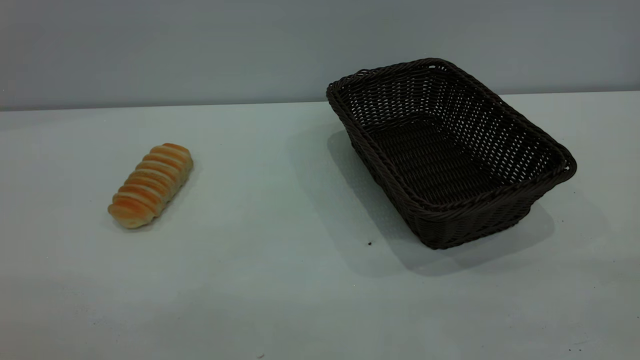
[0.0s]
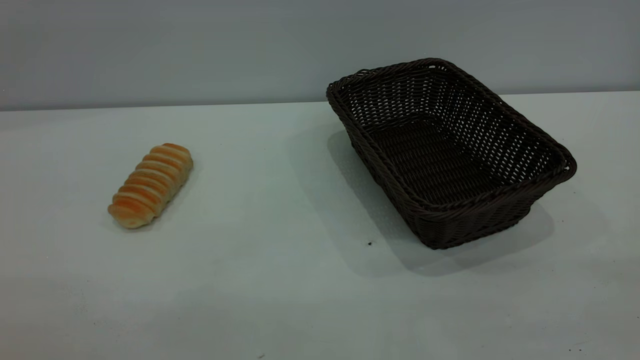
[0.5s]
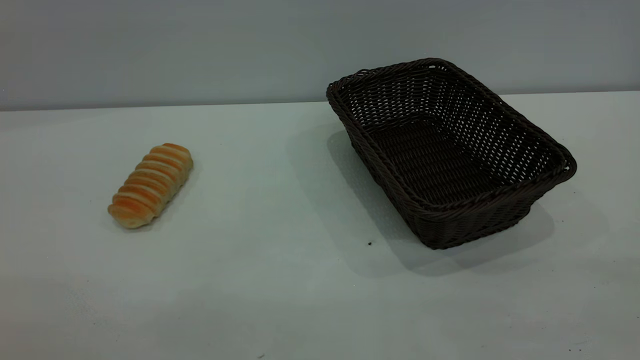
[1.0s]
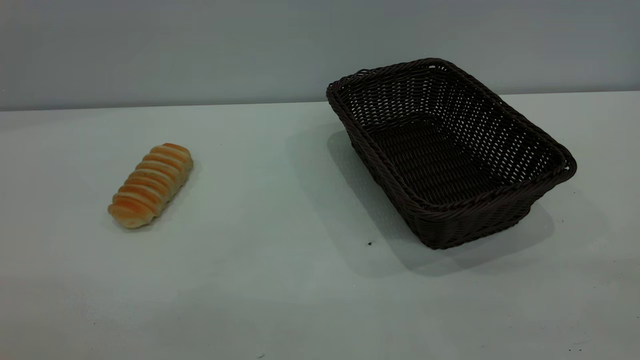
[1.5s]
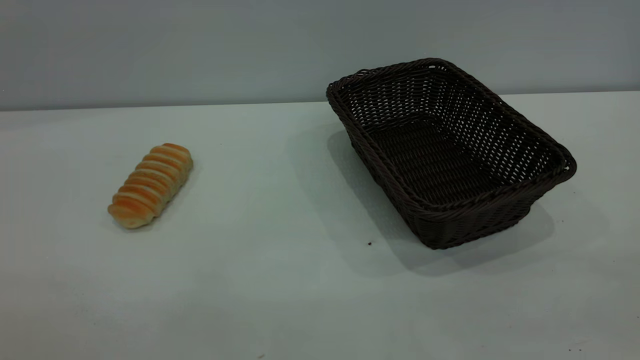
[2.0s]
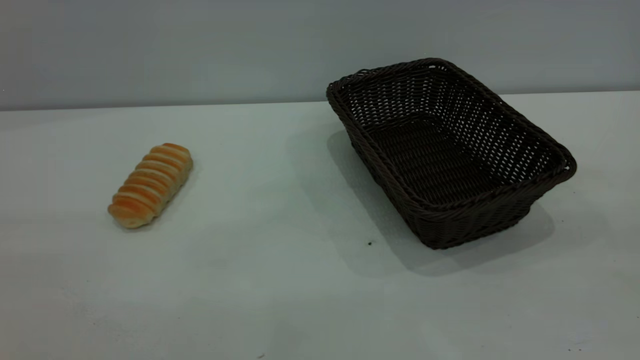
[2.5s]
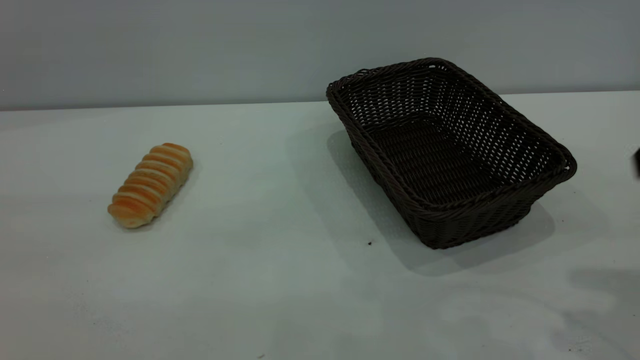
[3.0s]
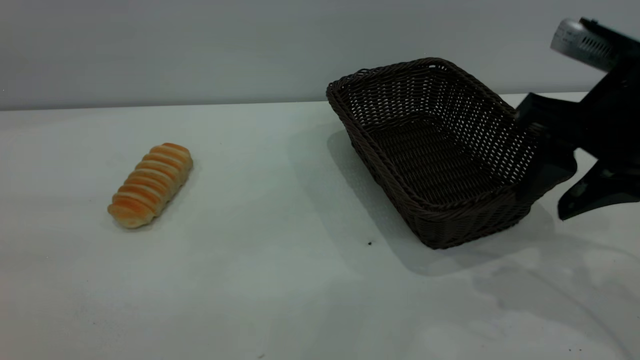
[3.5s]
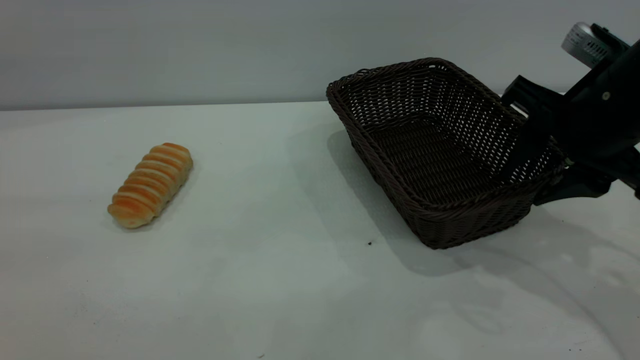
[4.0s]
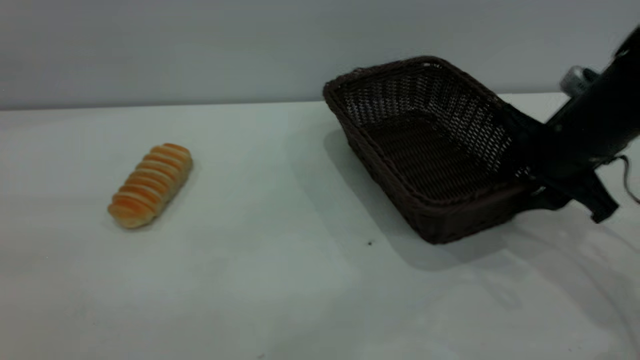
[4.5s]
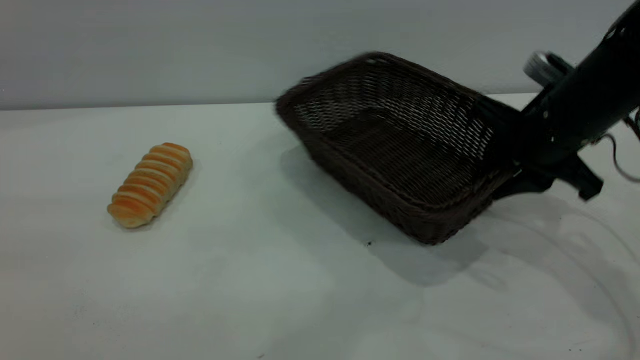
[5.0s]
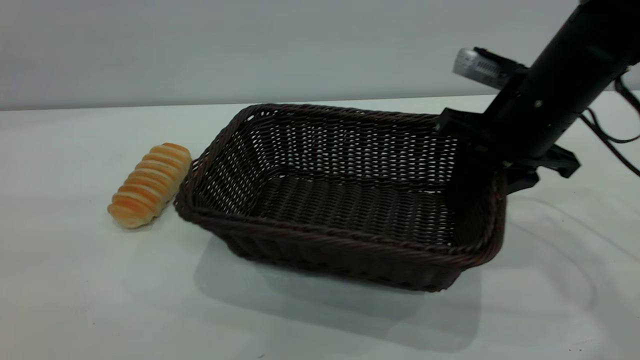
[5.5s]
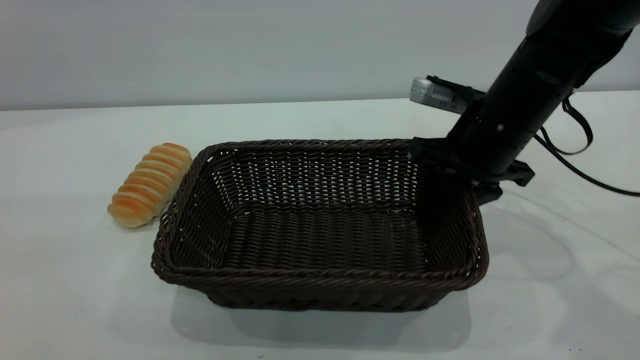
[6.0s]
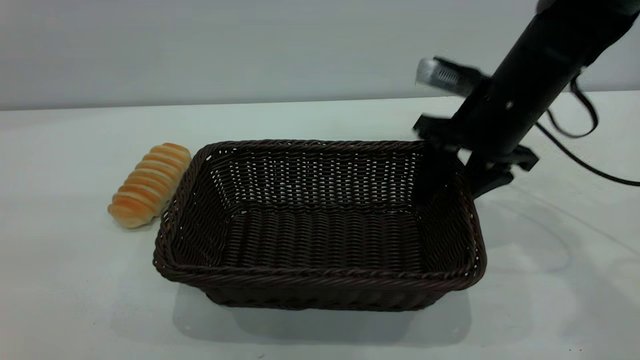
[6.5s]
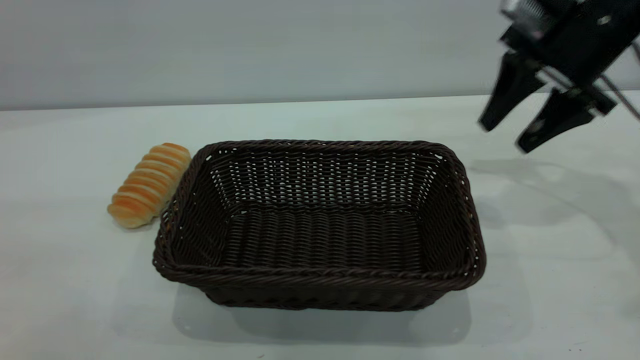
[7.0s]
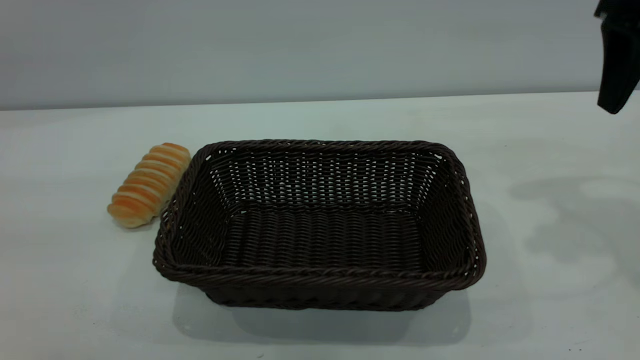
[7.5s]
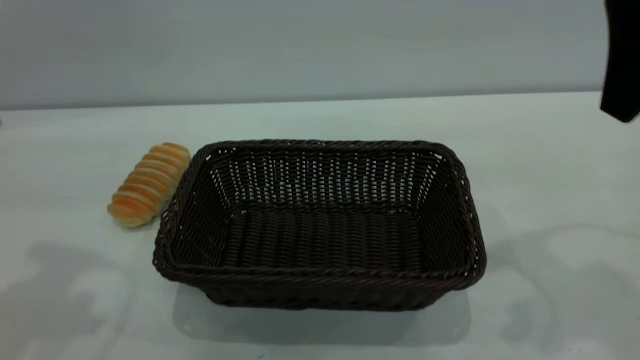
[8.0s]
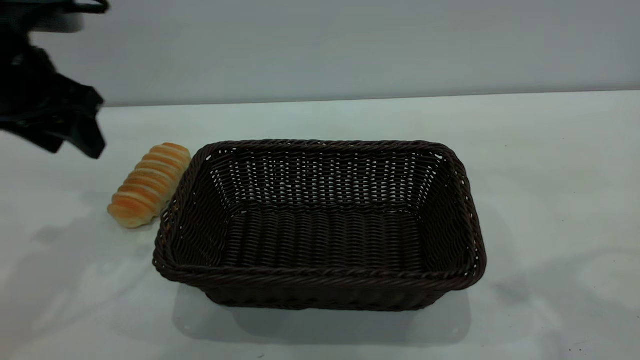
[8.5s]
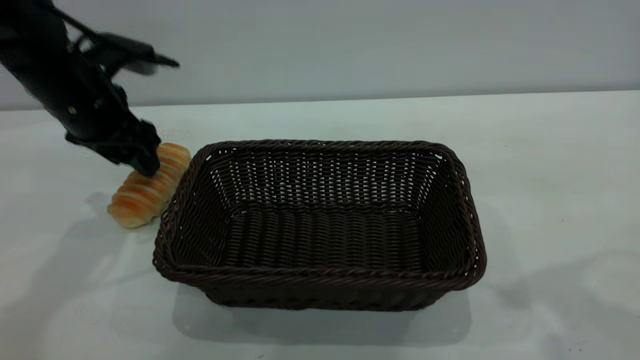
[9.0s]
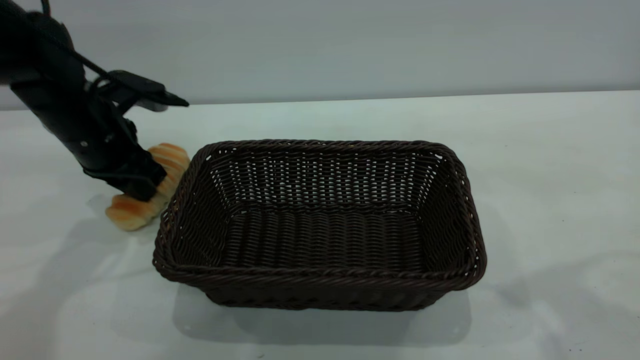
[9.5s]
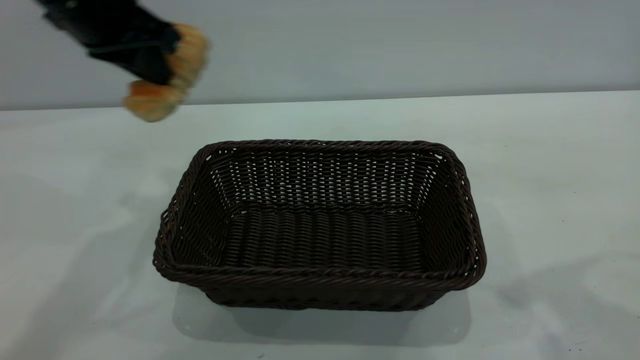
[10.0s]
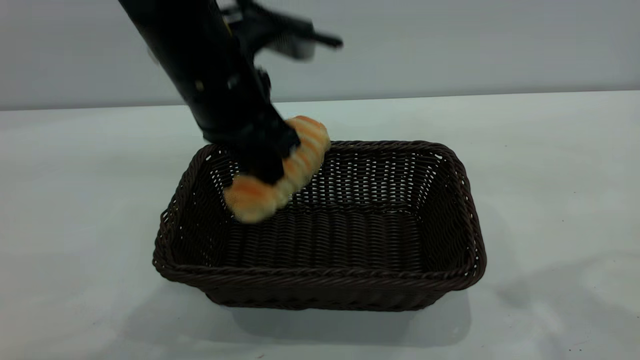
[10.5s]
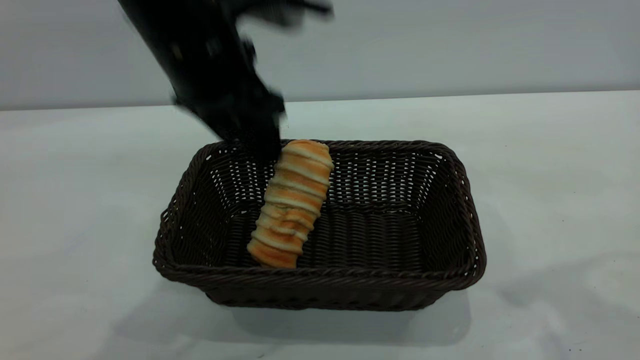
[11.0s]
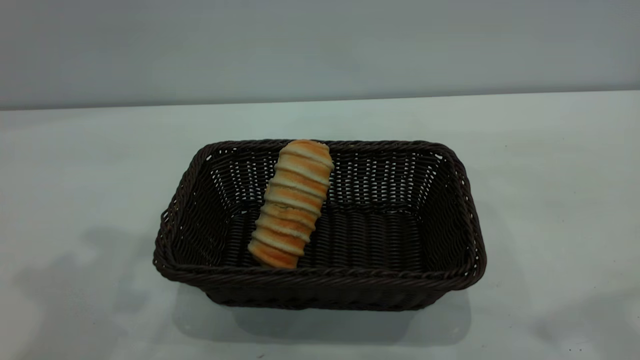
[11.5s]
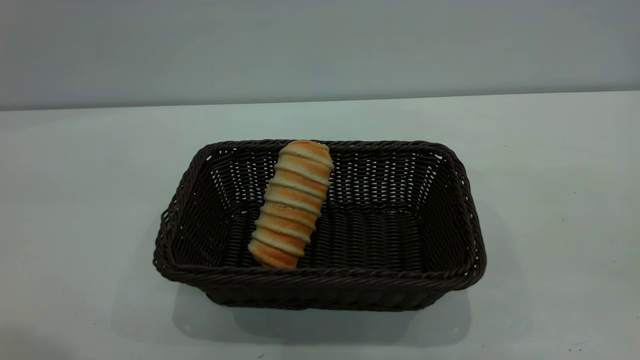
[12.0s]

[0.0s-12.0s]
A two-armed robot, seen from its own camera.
Task of the whole recording: One hand grasps the black basket and places it in the middle of the table, while the other hand picks up the long bread and puts it into the black basket.
Step, 0.0s to 6.5s: Move the basket to the center of view.
Step, 10.0s to 11.0s: place the bread into the basket.
2.0s to 4.0s: The right gripper is displaced forward and downward by about 35 cm.
4.0s to 6.0s: The right gripper heads forward and to the left, covering about 10 cm, and closes.
6.0s to 8.0s: The left gripper is displaced forward by roughly 20 cm, while the right gripper shifts approximately 25 cm upward and backward, and opens its fingers.
8.0s to 10.0s: The left gripper heads forward and to the right, covering some 15 cm, moves roughly 15 cm downward and comes back, and closes, while the right gripper shifts by roughly 5 cm.
10.0s to 12.0s: The right gripper shifts about 15 cm backward, while the left gripper travels backward and upward by approximately 30 cm, and opens.
